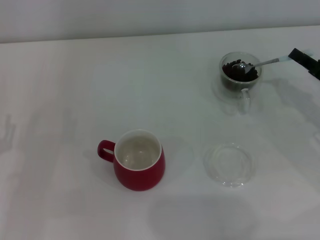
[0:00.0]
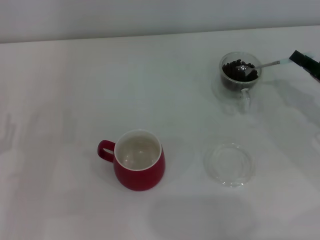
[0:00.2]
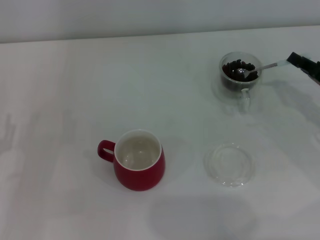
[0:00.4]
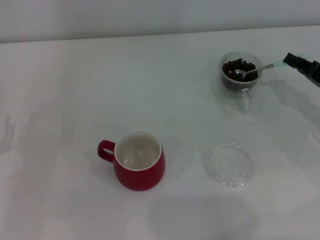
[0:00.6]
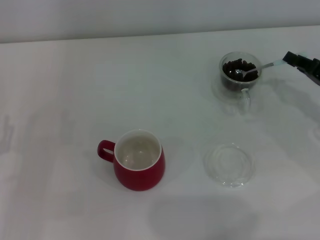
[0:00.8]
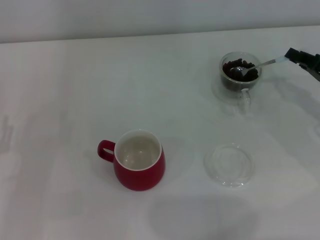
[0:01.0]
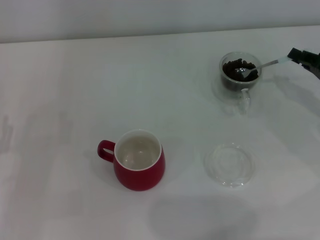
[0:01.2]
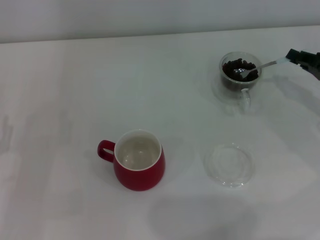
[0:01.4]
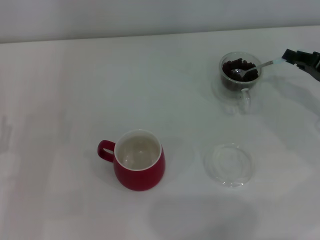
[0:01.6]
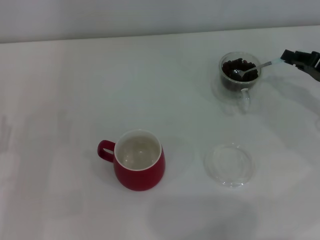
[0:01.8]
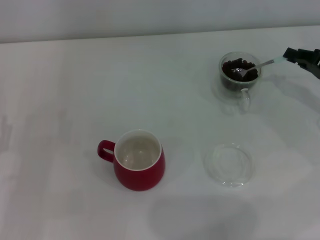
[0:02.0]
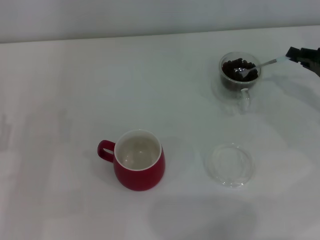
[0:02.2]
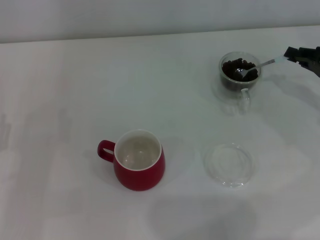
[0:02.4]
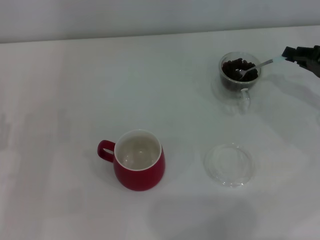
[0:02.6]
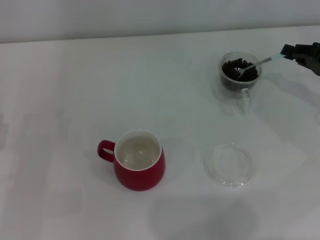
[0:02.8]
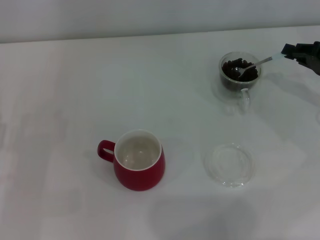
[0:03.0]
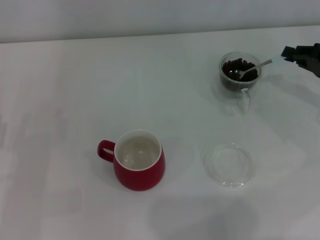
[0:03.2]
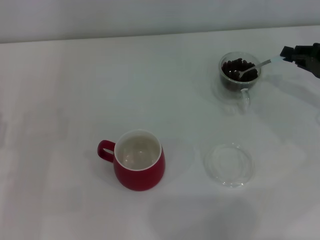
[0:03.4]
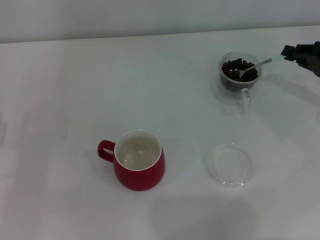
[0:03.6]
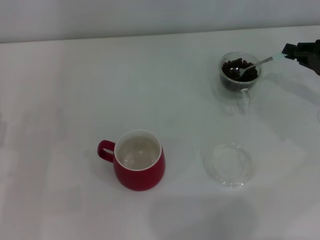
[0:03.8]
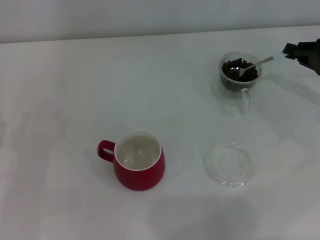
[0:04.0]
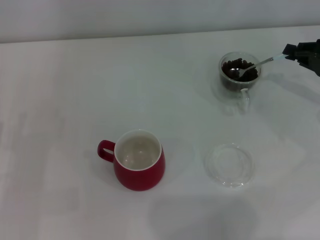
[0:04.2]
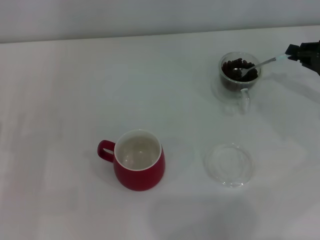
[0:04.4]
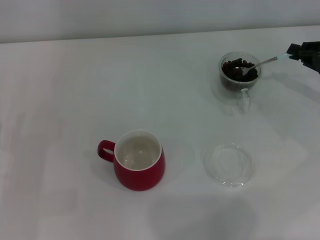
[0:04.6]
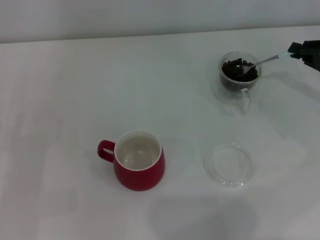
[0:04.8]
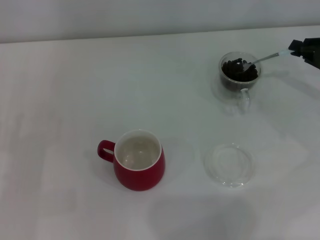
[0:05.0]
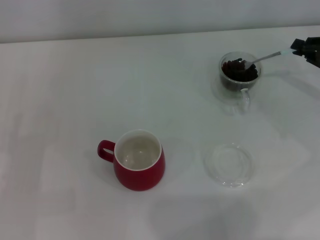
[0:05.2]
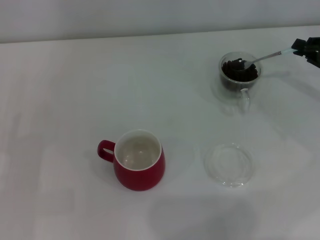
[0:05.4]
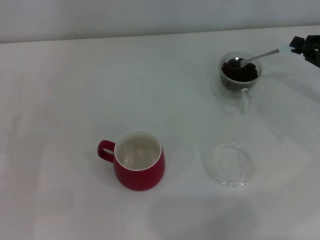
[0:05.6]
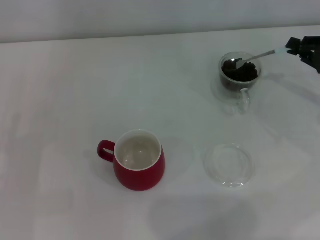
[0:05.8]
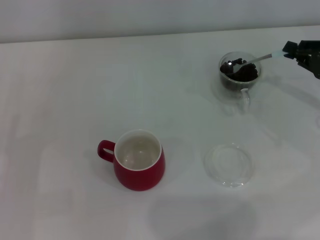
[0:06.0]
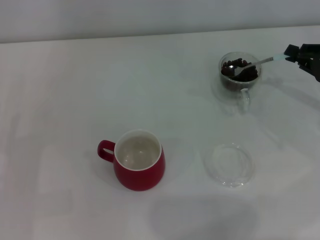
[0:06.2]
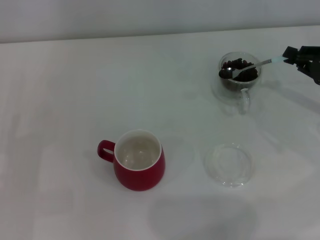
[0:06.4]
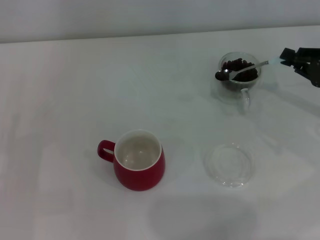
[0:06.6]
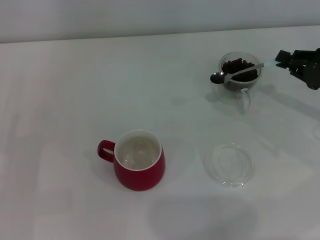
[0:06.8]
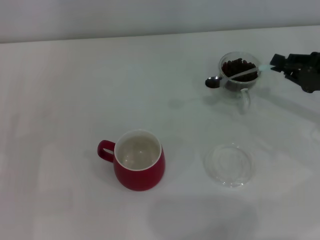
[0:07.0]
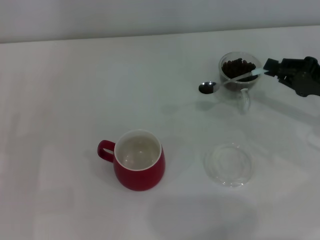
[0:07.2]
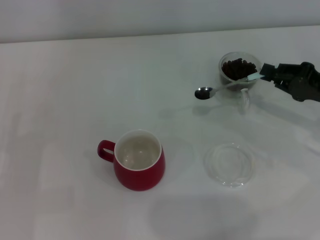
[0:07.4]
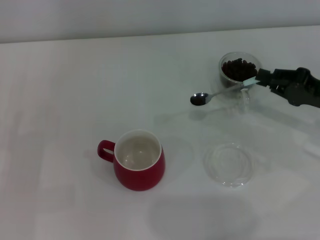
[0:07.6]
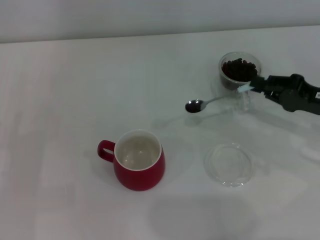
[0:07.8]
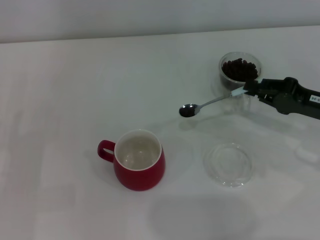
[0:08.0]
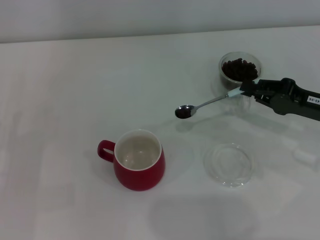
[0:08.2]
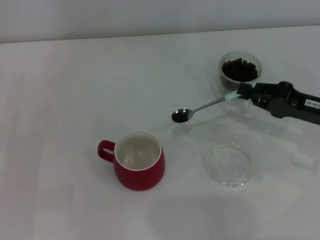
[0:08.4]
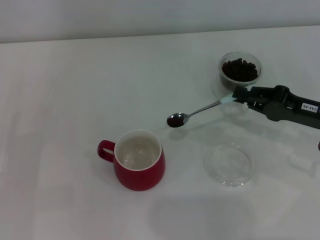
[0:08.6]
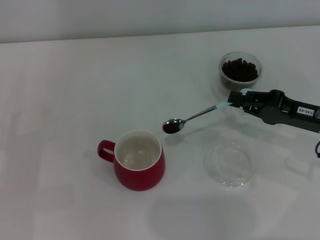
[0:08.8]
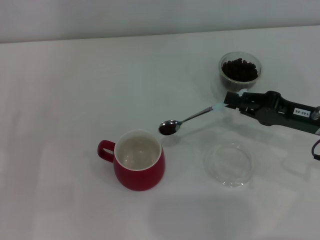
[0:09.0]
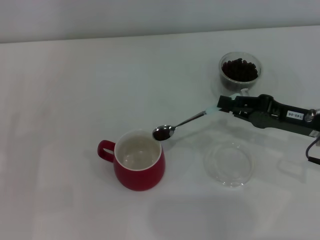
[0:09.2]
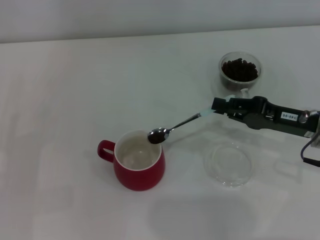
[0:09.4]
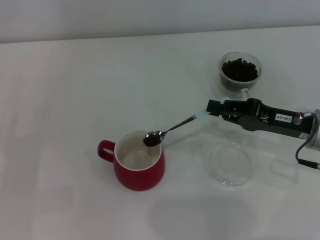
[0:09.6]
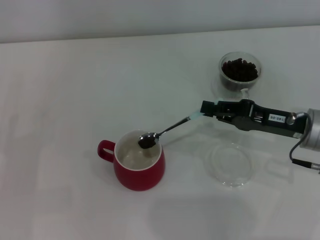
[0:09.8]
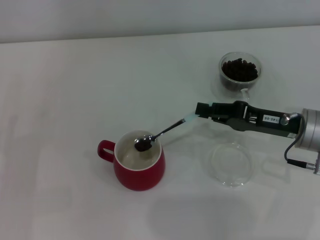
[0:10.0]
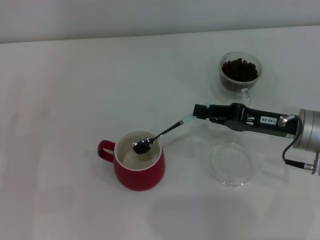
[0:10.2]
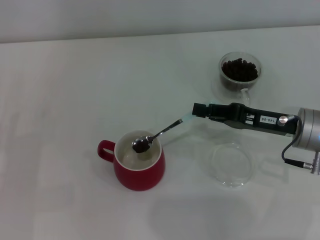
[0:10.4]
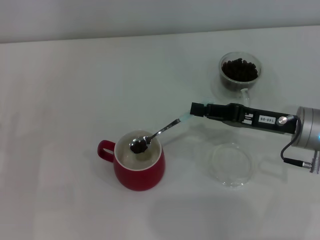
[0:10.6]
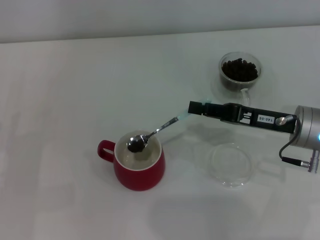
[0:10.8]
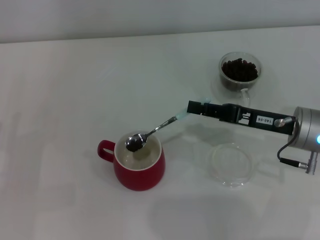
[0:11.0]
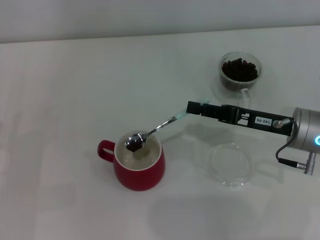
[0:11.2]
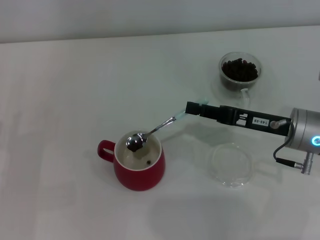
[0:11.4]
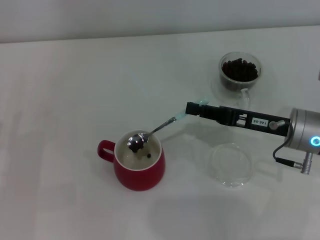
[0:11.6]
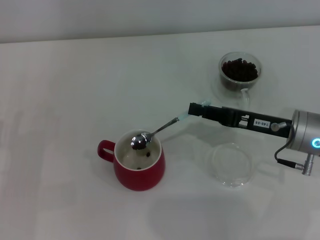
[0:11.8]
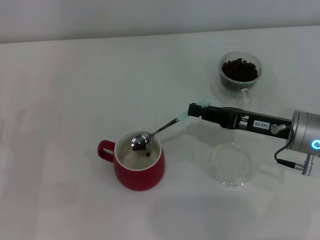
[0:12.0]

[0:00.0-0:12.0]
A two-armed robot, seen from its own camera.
Task of the whole recording: Use a blue spoon to take out the coffee beans from the glass and pour them into the red cup.
0:01.6 to 0:03.0: The grippers stay close to where they were, moving slightly.
0:06.0 to 0:07.6: The right gripper moves approximately 5 cm.
0:07.6 to 0:09.0: The grippers move only a little.
0:09.0 to 0:10.4: There are only small adjustments of the grippers.
0:10.4 to 0:12.0: The grippers move only a little.

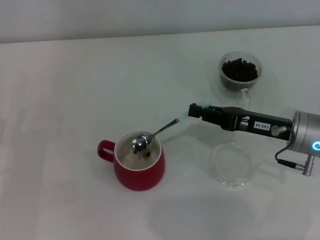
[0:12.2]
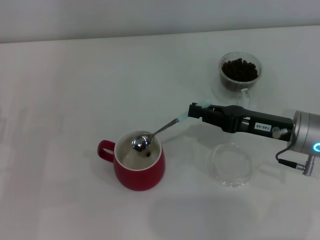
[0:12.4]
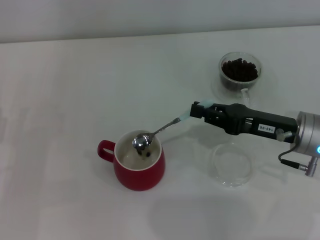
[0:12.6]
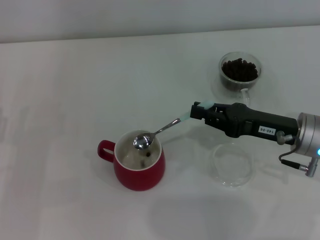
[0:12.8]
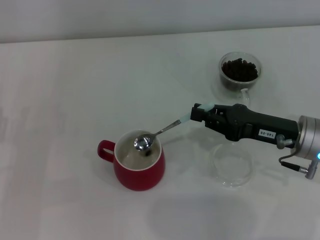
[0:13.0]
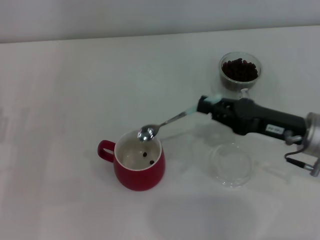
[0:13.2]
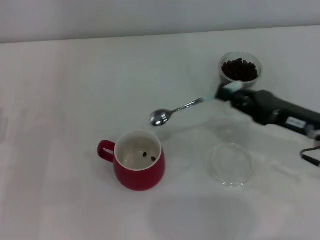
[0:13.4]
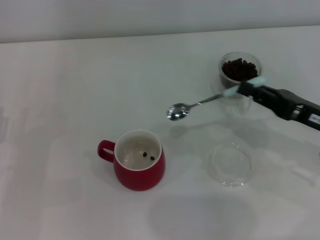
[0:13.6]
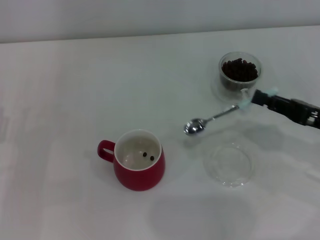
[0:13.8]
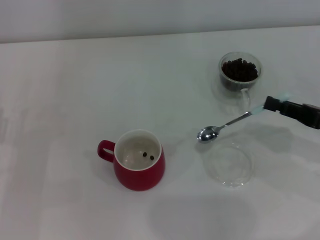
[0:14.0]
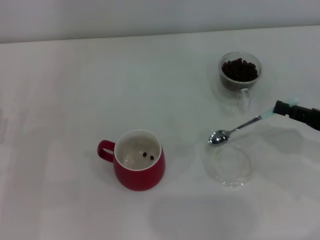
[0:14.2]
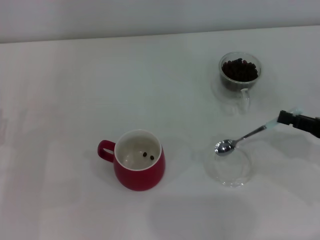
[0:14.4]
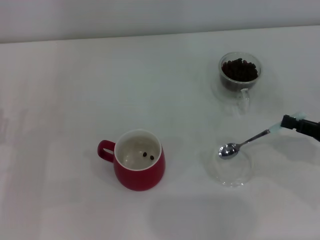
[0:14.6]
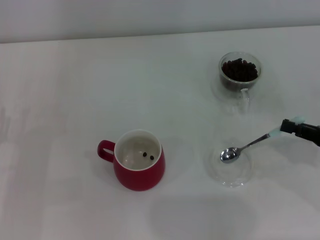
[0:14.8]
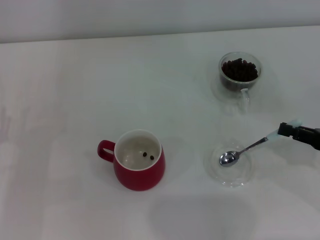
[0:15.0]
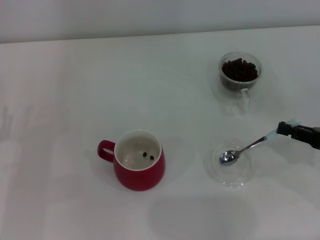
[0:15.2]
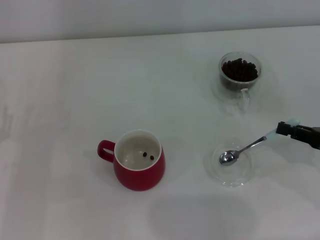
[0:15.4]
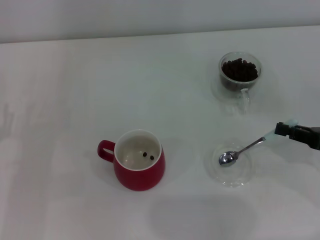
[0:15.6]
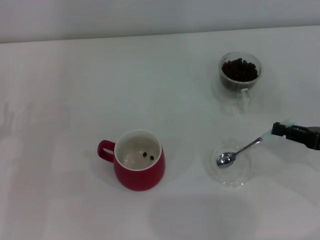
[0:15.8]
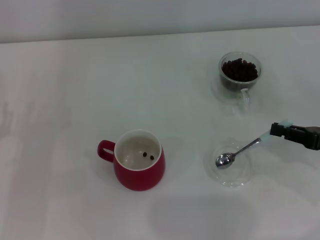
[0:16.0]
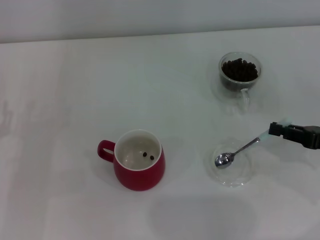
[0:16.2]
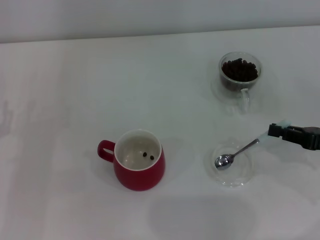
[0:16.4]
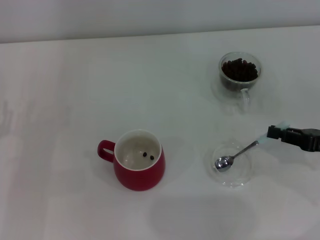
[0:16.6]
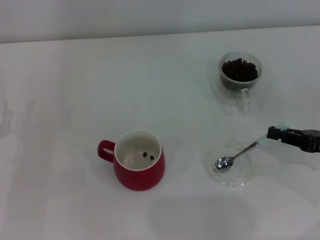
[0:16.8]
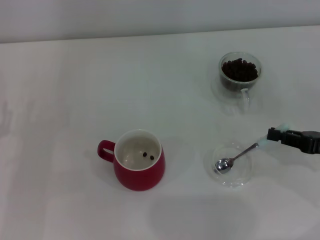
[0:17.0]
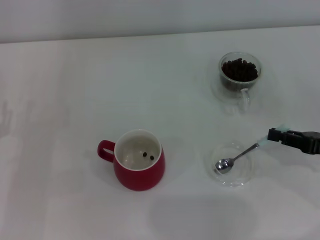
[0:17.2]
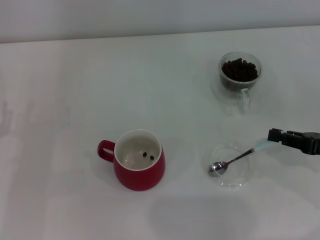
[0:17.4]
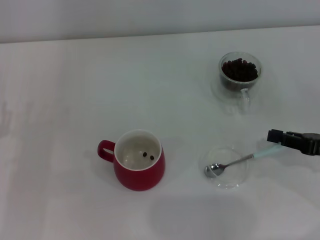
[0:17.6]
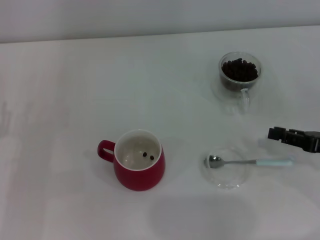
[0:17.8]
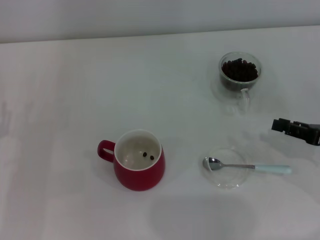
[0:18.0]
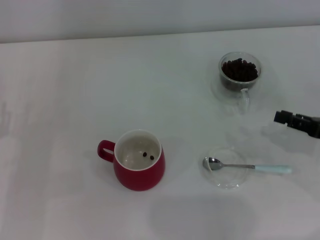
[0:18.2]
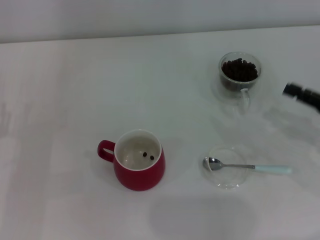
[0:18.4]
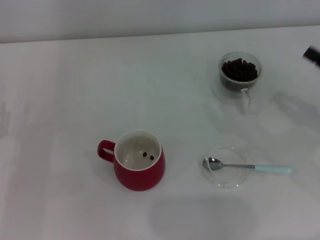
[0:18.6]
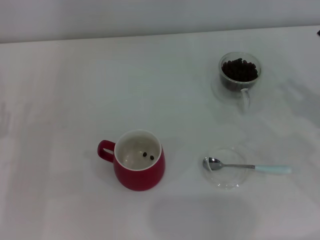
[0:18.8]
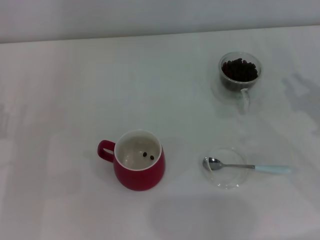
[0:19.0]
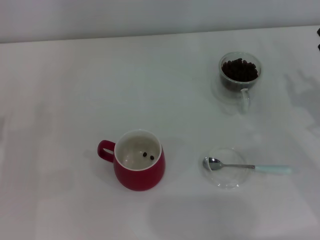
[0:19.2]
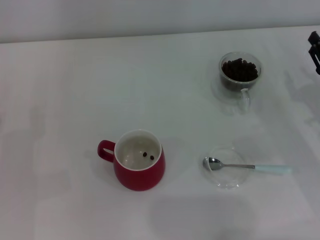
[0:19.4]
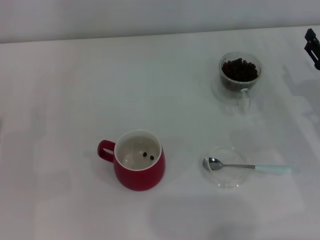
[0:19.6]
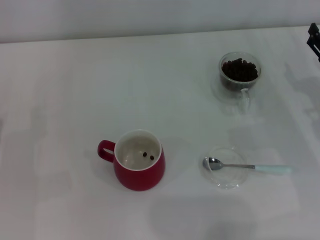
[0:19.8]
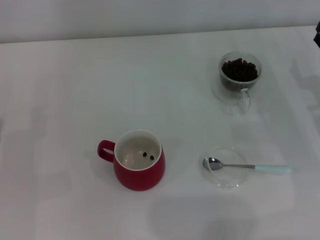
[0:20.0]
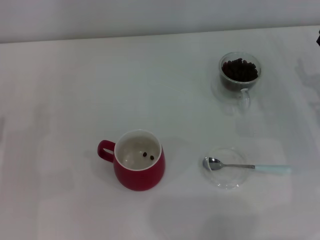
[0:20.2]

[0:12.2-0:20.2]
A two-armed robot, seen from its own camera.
Task of the whole recording: Use a blue spoon to take out the coffee beans from the glass and pour them into the red cup.
Step, 0:12.8 to 0:17.4: Place the spoon back in its original place with the right gripper.
0:12.2 to 0:13.8: The right gripper shifts roughly 10 cm to the right.
0:13.8 to 0:15.4: The right gripper shifts by some 5 cm.
0:15.4 to 0:17.0: The two grippers keep their place.

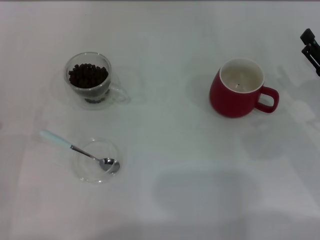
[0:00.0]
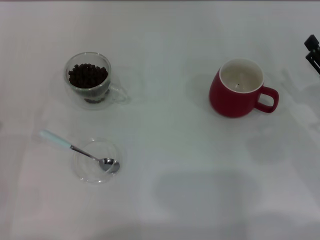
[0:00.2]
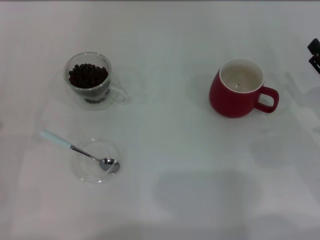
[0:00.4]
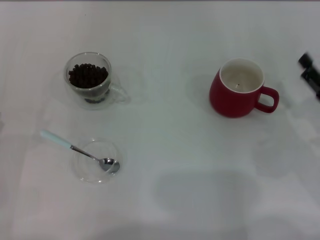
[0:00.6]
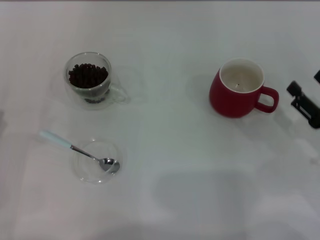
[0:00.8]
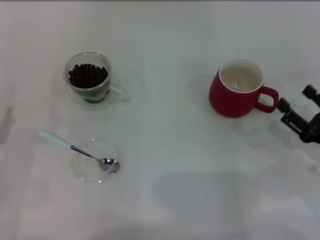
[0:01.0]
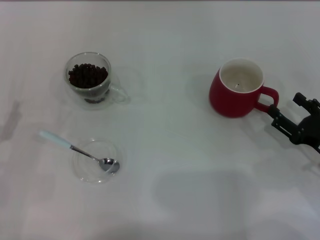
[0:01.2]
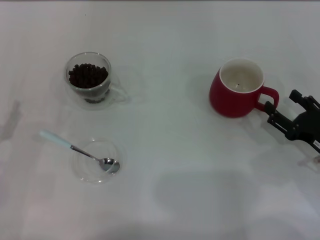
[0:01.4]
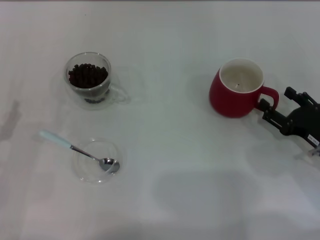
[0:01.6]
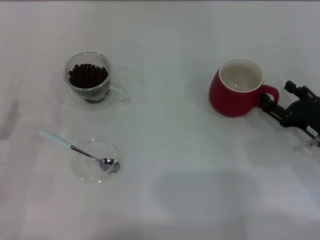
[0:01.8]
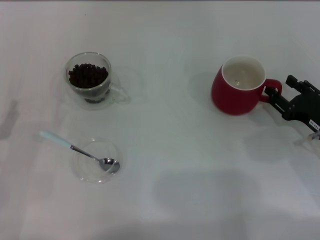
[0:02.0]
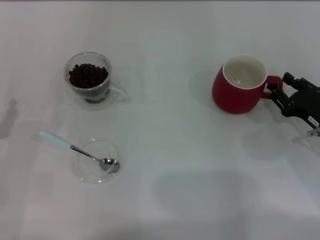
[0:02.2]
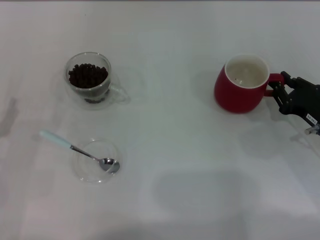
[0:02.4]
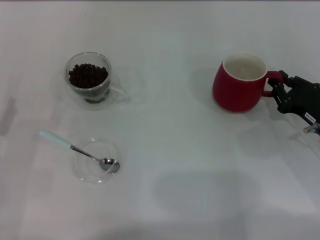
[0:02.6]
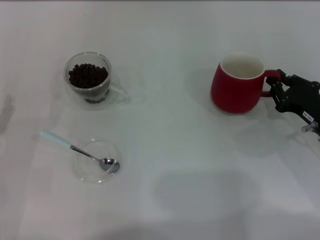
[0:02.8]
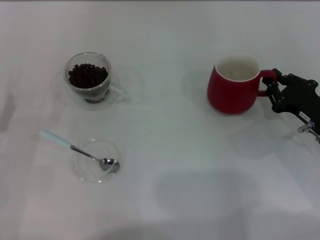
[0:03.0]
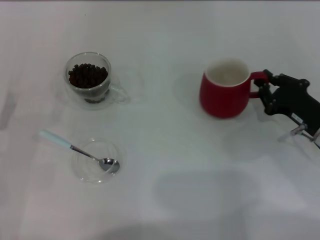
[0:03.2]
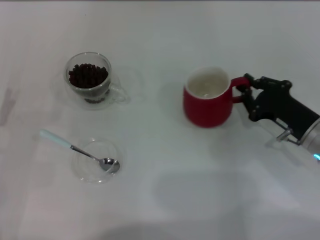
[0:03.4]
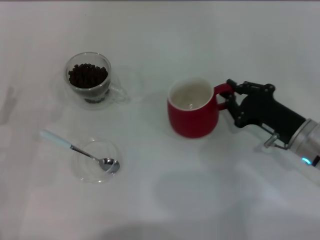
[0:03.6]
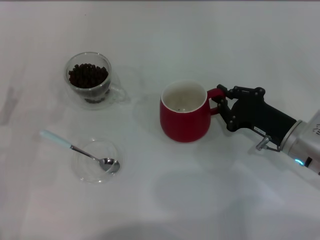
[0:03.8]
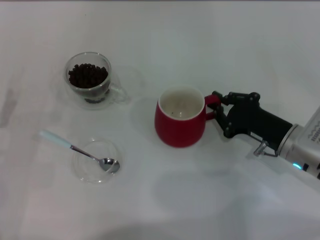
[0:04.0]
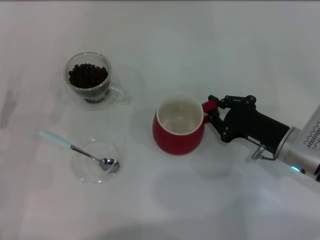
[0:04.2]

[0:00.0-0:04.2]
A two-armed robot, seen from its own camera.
Task of the whole recording: Use a blue spoon to take out the coffee beans from the glass and pour them into the red cup.
0:00.0 to 0:01.4: The right gripper moves roughly 5 cm.
0:01.4 to 0:02.8: The right gripper closes up.
0:02.8 to 0:04.2: The right gripper is displaced to the left by roughly 5 cm.
